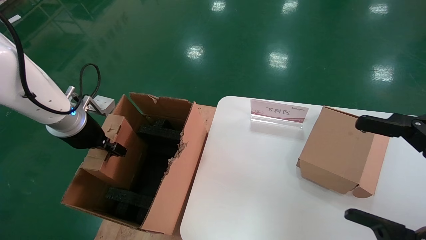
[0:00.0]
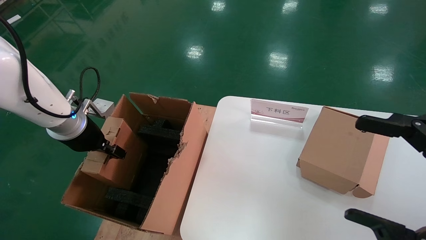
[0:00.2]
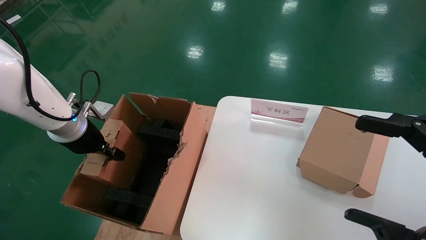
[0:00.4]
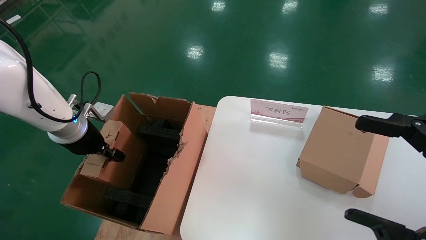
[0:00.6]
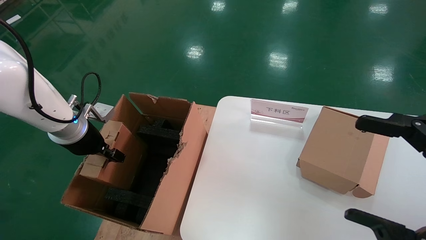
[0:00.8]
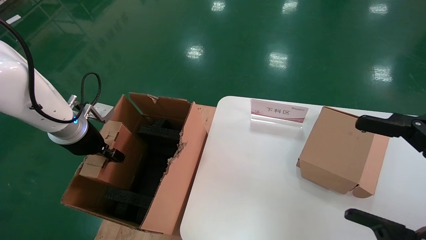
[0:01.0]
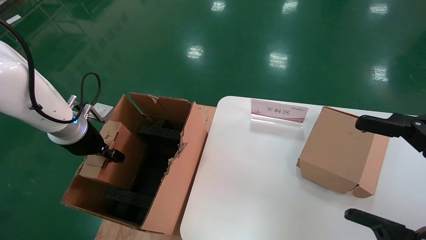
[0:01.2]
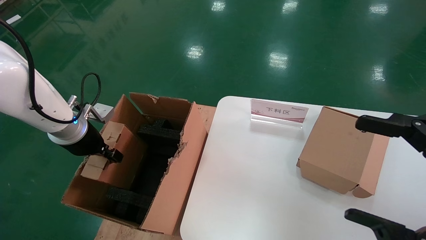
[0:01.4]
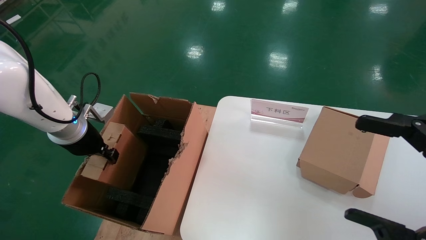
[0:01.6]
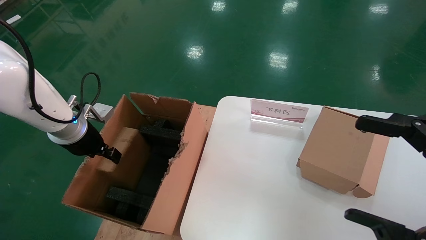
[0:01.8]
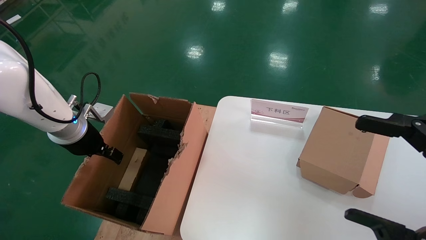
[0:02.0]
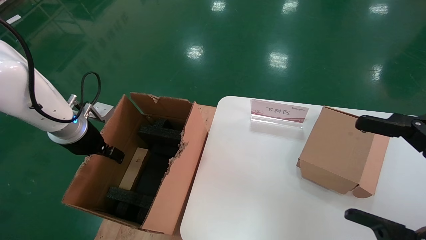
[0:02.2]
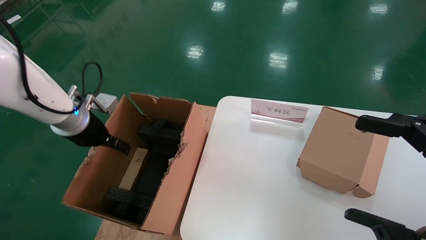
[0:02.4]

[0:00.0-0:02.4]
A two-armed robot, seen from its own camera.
Task of the whole recording: put the box on the table into the big box.
0:00.0 to 0:01.2: The grippers move only a little.
0:01.2 to 0:02.4: The left gripper opens.
